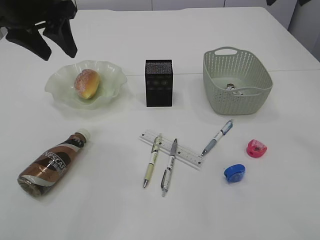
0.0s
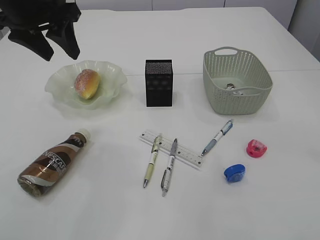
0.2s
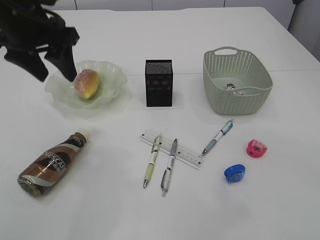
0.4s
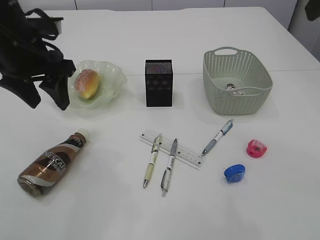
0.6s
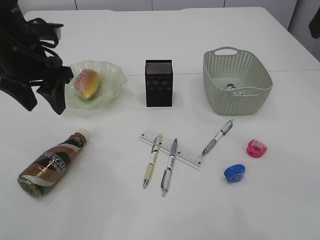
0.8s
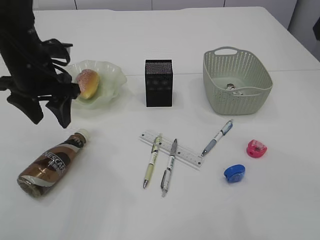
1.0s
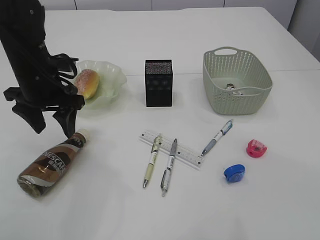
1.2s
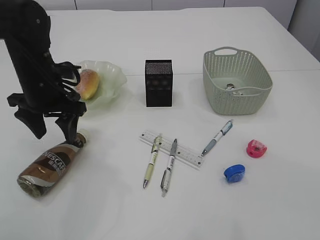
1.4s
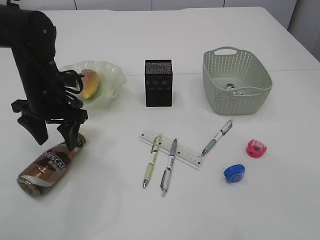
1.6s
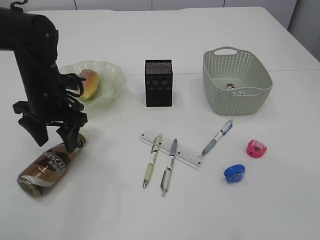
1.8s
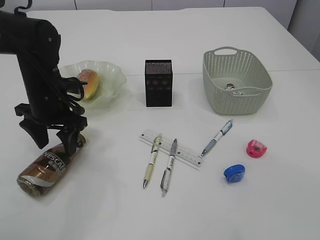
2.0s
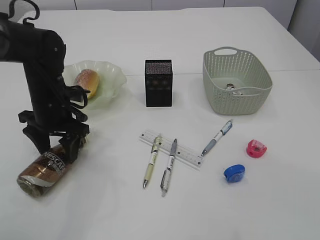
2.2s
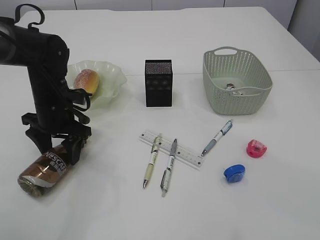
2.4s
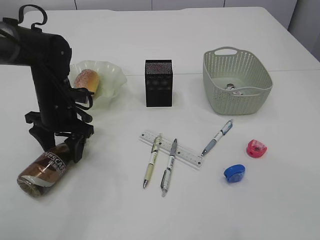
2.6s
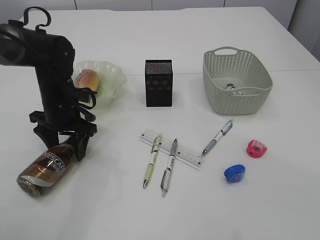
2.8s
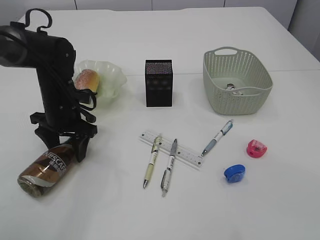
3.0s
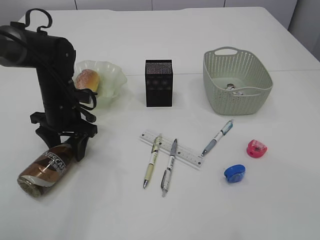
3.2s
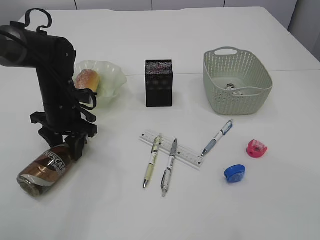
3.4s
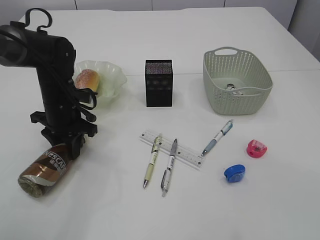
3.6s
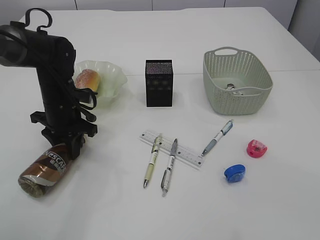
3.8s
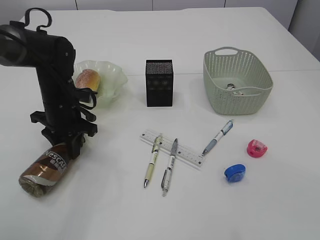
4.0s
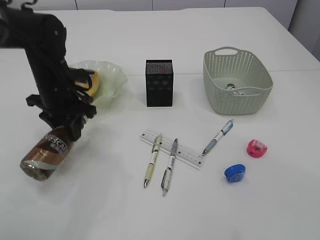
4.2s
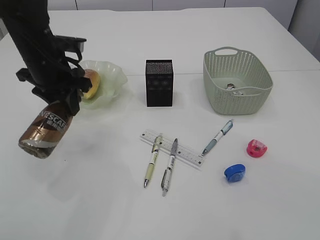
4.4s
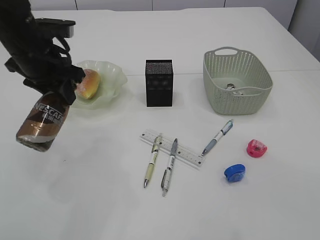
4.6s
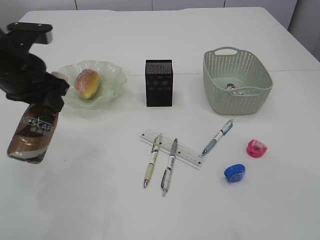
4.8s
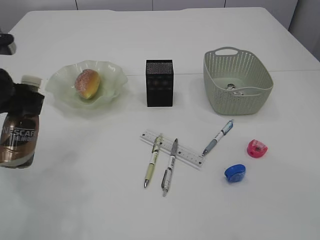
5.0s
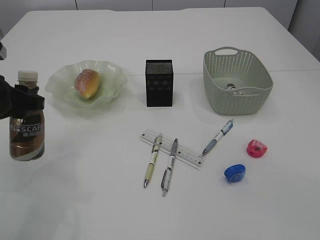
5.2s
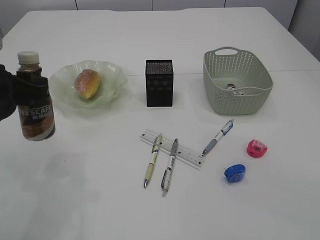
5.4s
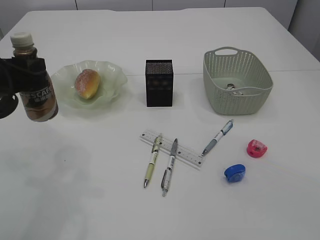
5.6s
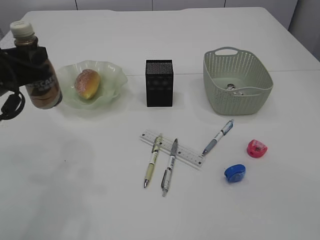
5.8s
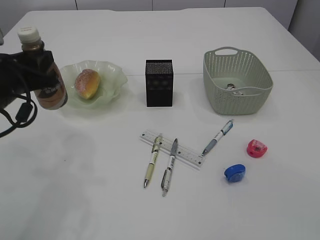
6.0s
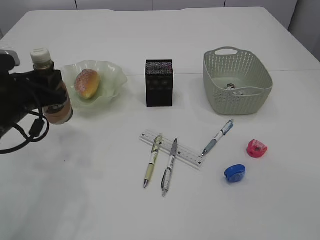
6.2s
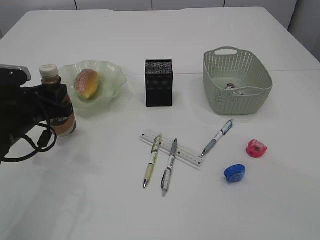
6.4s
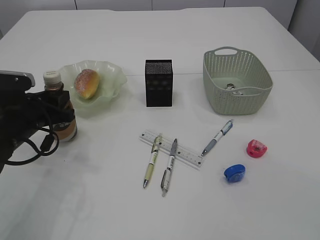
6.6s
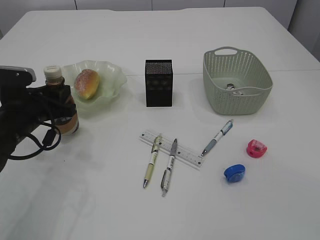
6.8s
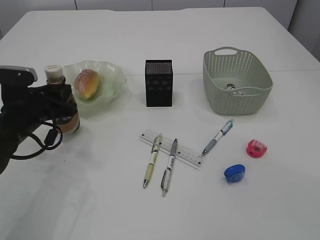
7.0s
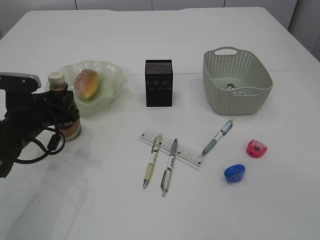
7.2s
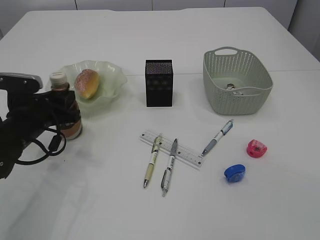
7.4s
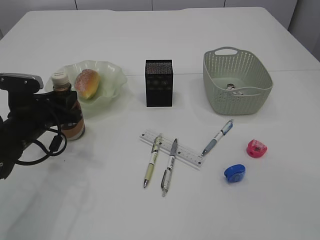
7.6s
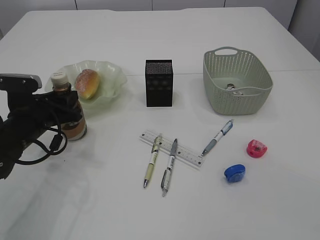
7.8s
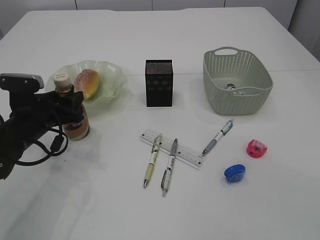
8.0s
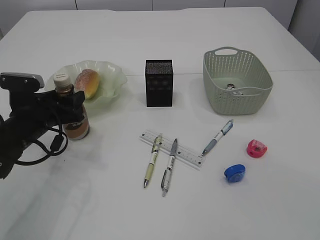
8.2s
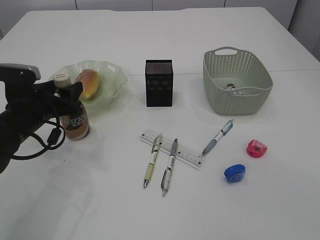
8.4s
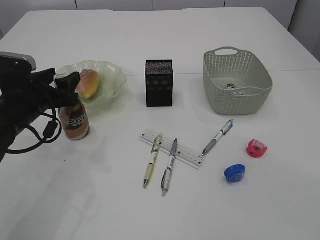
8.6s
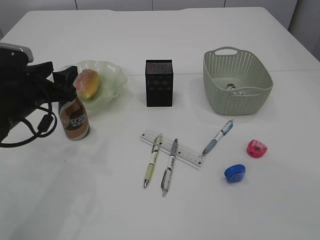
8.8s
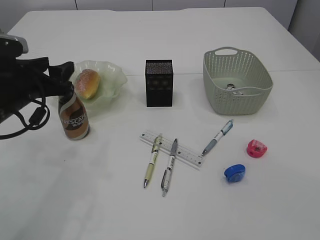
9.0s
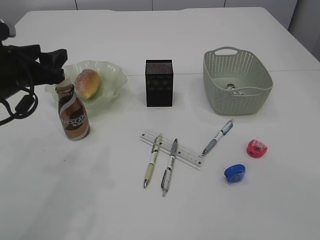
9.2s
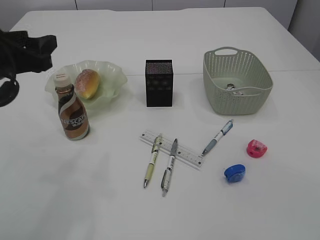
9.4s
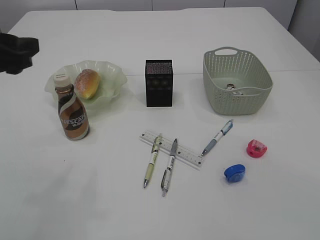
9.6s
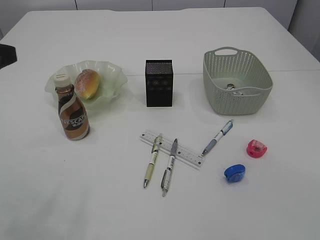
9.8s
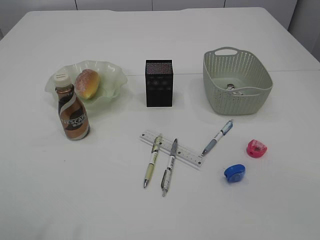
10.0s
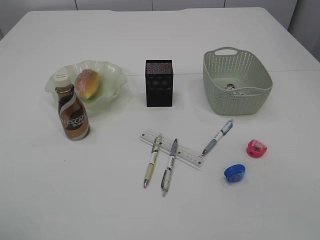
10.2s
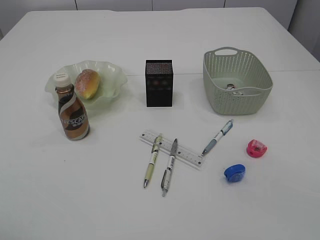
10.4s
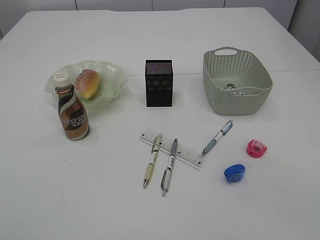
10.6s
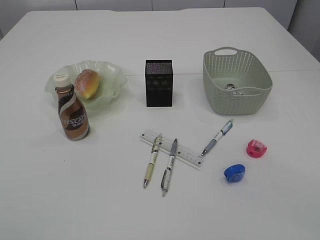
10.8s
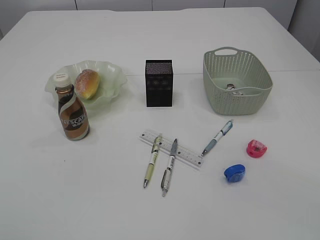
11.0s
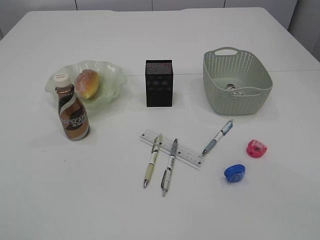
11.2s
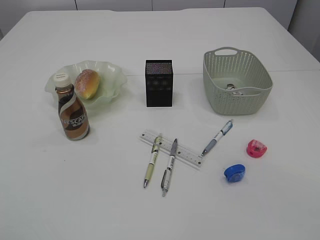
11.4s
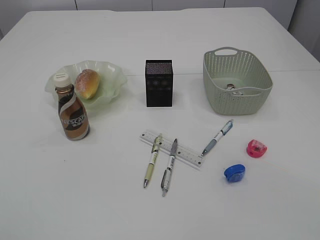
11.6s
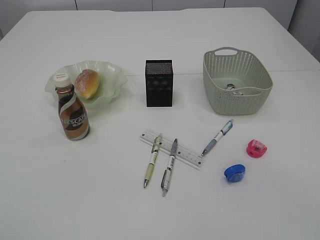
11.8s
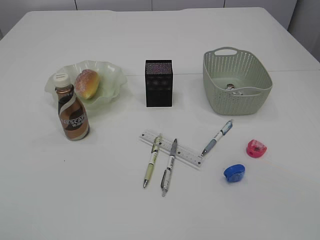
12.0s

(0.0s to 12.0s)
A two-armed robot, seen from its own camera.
Step, 0.0s - 4.2s: Pick up the bottle with the left arm.
Step, 4.4s - 9.4s: Place the bottle.
0.0s - 1.6s: The left gripper shifts about 15 cm downward.
1.6s - 3.0s: The left gripper travels downward by roughly 5 cm.
3.0s - 4.4s: The left gripper moves upward, roughly 10 cm, and closes its fingers.
4.4s - 6.0s: The left gripper shifts approximately 10 cm backward and to the left.
6.0s - 7.6s: The left gripper shifts about 10 cm downward.
7.6s - 9.0s: The left gripper moves upward, some 10 cm, and opens its fingers.
9.0s - 10.4s: The left gripper shifts approximately 25 cm backward and upward.

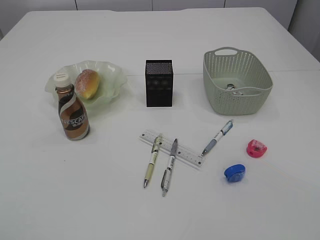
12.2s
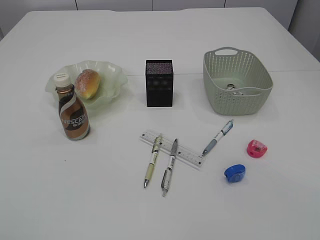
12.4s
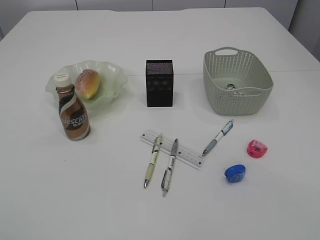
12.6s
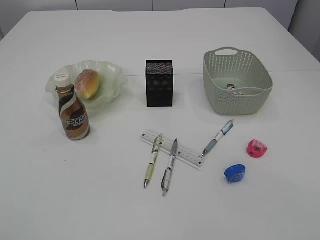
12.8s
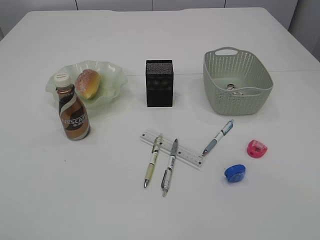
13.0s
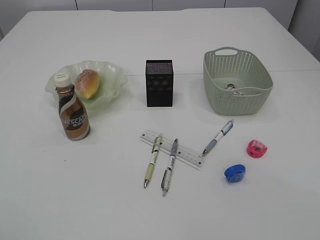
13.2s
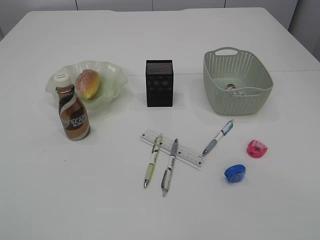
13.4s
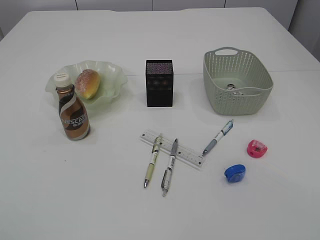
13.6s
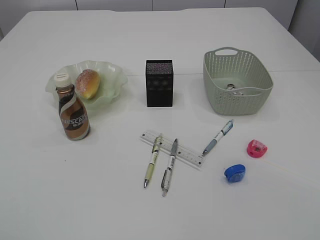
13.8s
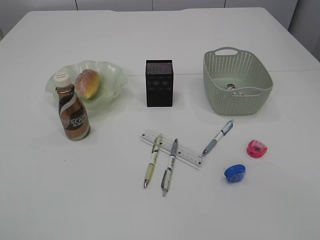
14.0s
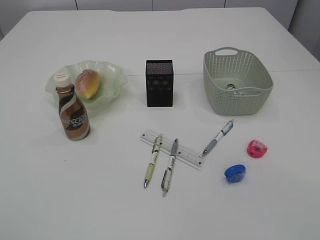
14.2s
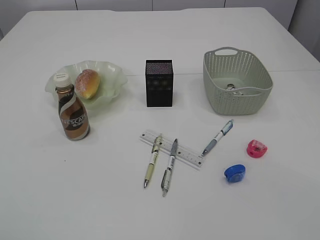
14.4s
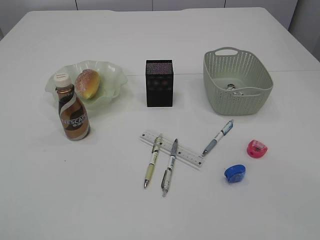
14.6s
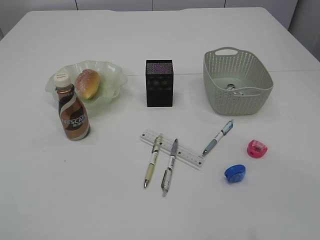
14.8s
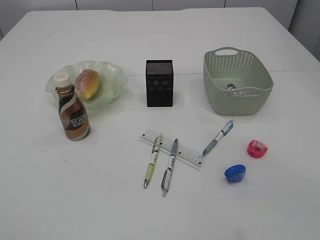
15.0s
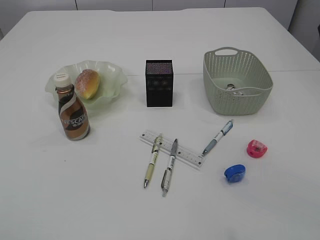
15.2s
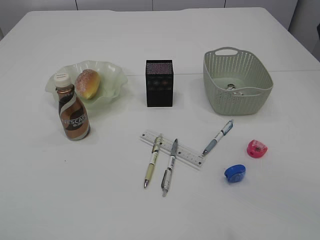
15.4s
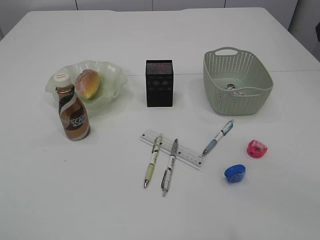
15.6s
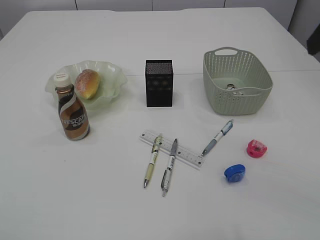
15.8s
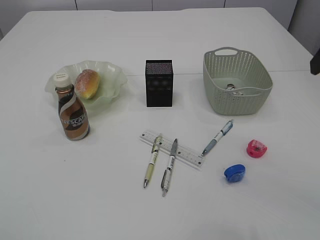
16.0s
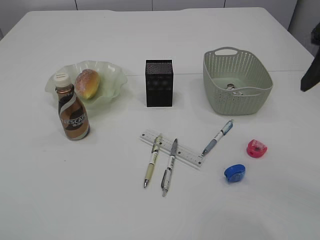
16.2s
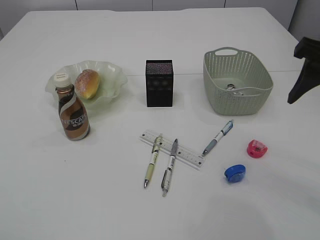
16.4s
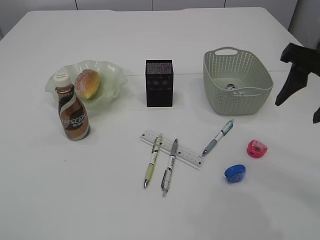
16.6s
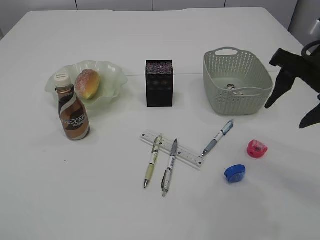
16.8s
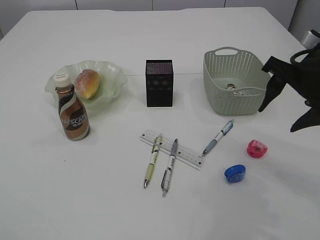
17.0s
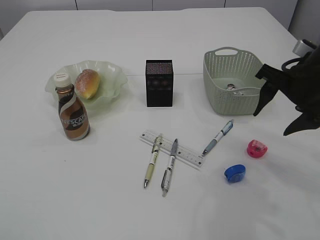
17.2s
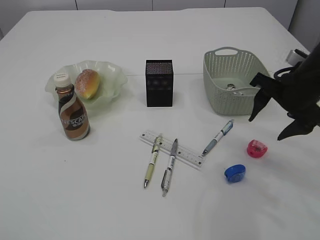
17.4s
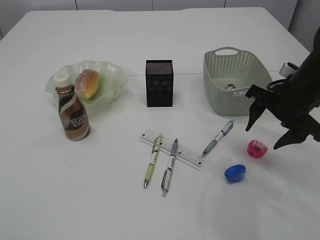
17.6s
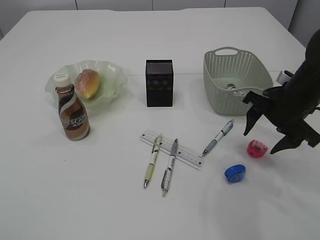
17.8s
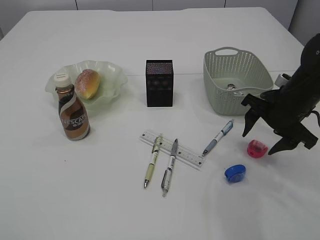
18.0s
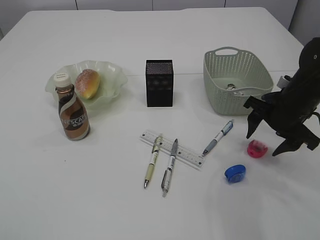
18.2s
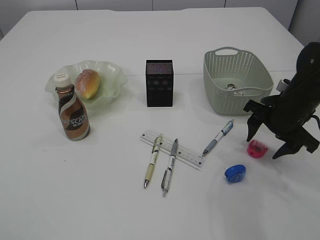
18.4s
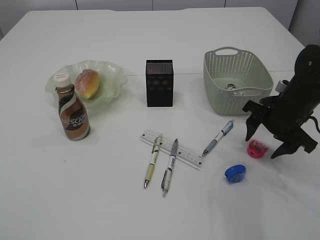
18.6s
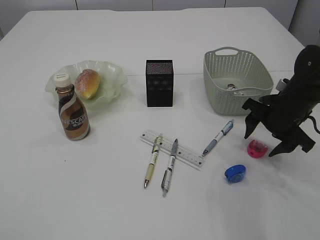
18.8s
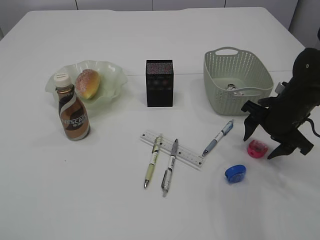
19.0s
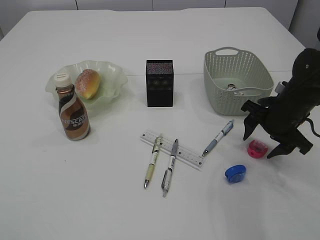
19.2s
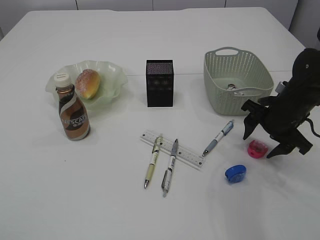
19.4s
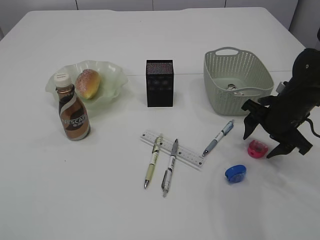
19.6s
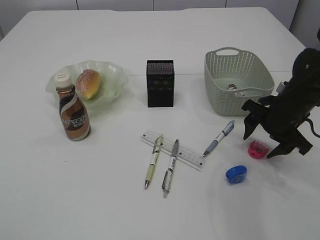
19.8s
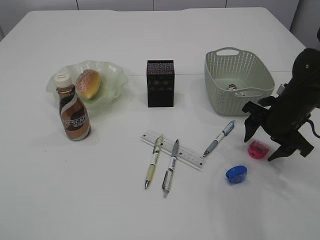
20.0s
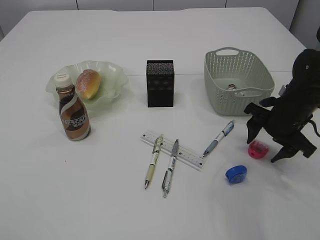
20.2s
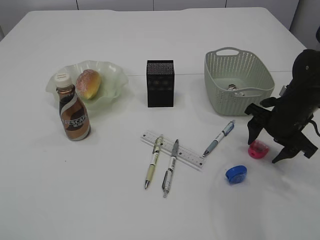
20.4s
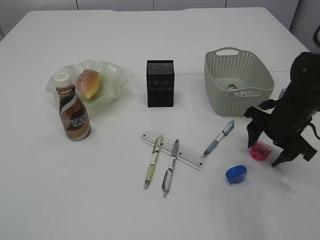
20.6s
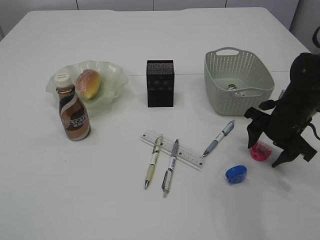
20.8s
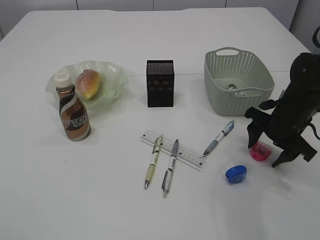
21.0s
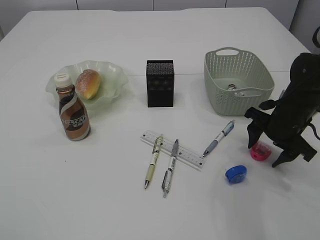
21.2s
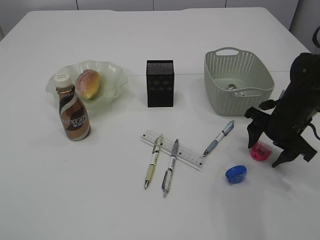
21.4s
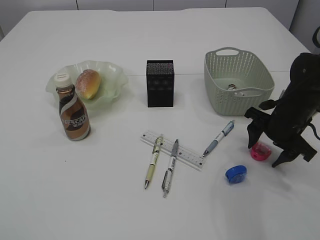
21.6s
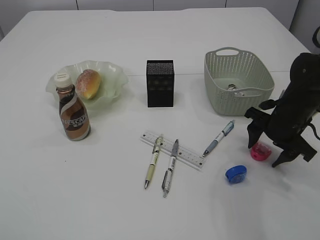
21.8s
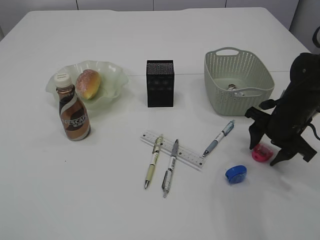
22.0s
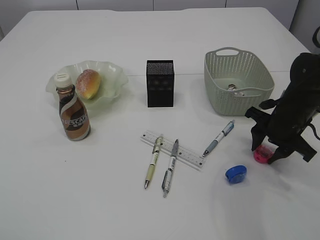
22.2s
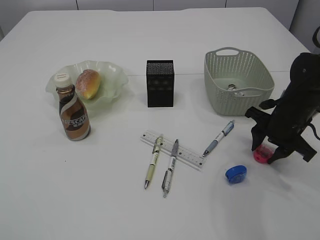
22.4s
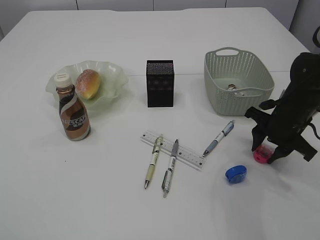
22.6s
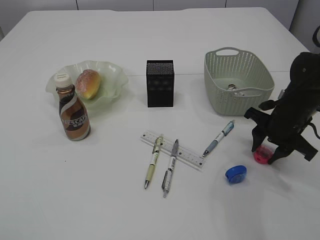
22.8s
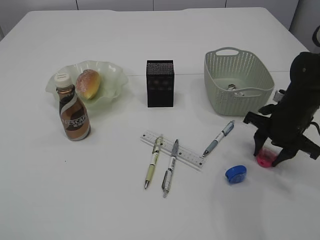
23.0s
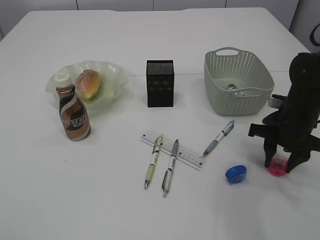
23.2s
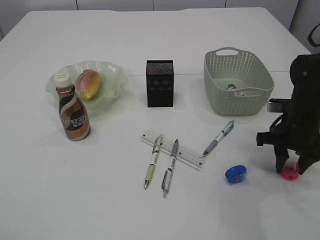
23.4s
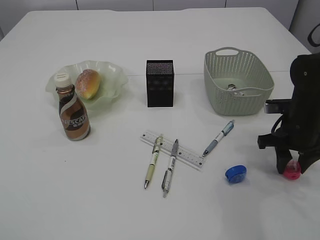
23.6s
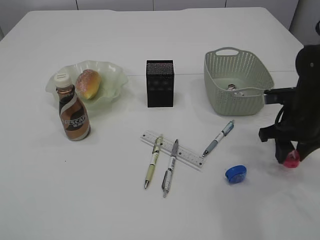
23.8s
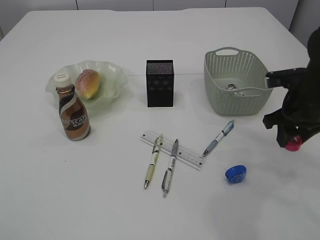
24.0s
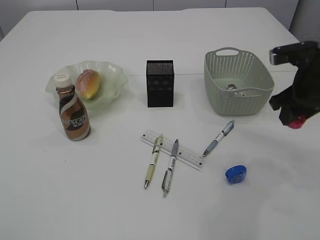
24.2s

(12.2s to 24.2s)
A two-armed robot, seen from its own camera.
Step, 12.2s - 24.0s: Pick up the red pencil sharpener.
15.2s - 16.6s: The right gripper shifts some 15 cm downward and forward.
16.6s - 18.2s: The right gripper goes about 15 cm downward and forward.
18.2s - 21.2s: The grippers make only small movements.
21.2s - 22.6s: The right gripper closes up.
22.6s - 24.2s: The right gripper goes about 10 cm upward.
